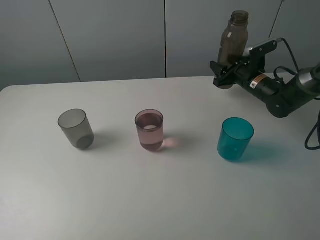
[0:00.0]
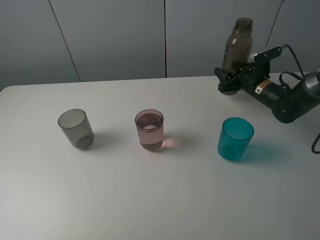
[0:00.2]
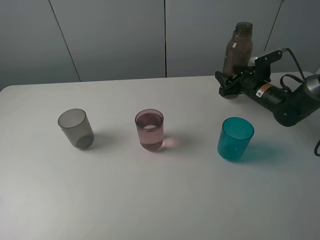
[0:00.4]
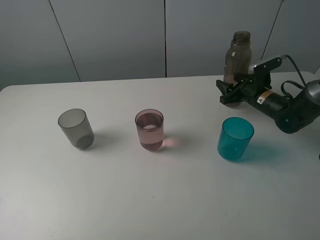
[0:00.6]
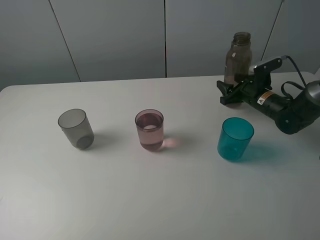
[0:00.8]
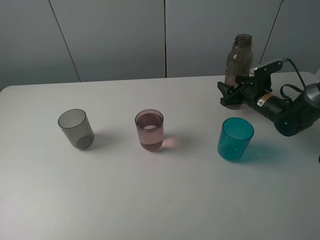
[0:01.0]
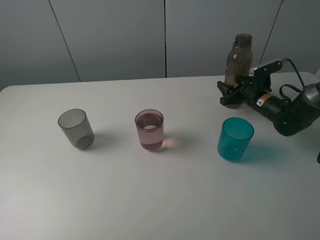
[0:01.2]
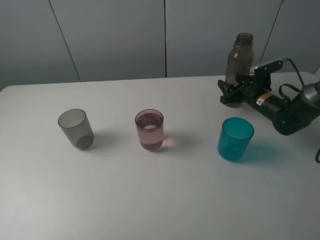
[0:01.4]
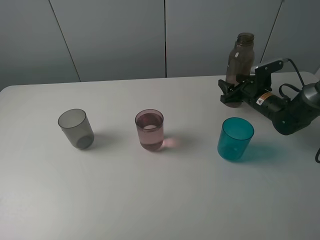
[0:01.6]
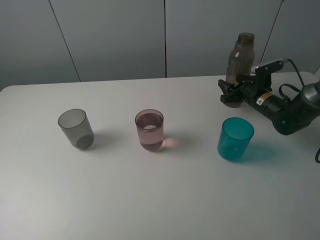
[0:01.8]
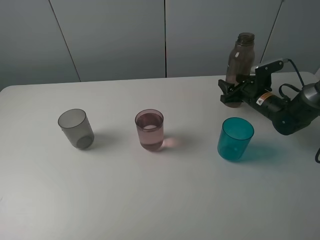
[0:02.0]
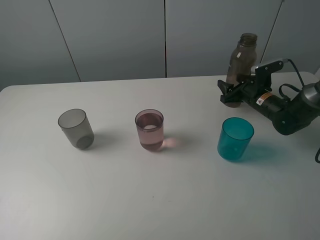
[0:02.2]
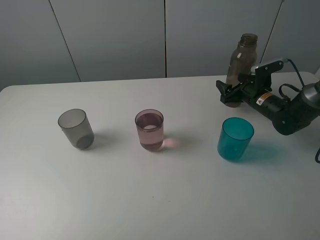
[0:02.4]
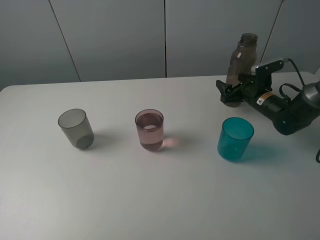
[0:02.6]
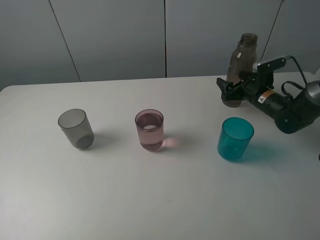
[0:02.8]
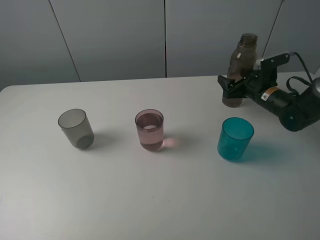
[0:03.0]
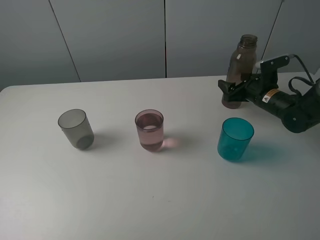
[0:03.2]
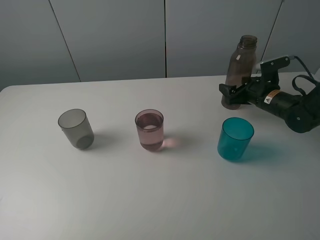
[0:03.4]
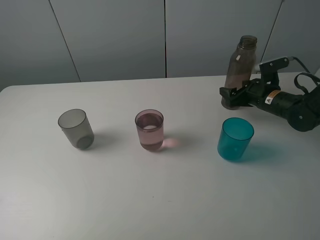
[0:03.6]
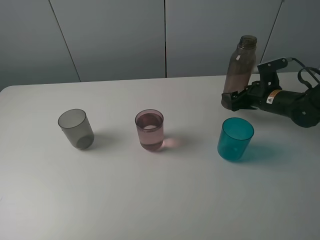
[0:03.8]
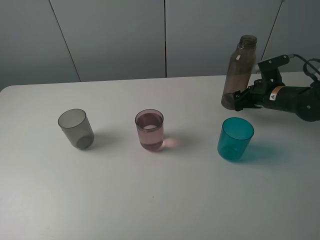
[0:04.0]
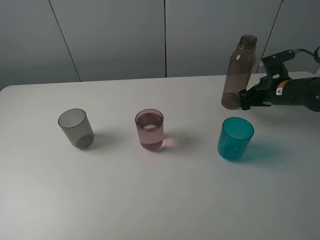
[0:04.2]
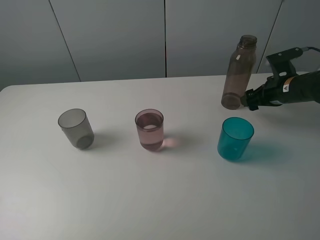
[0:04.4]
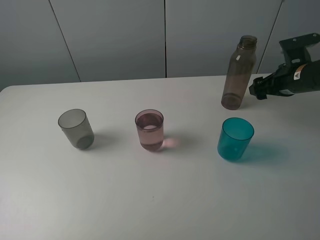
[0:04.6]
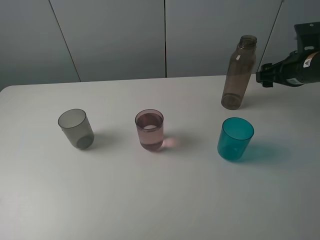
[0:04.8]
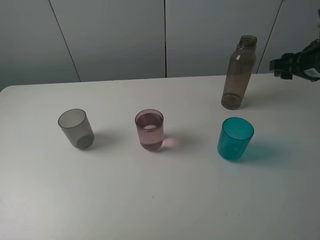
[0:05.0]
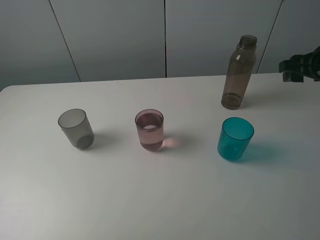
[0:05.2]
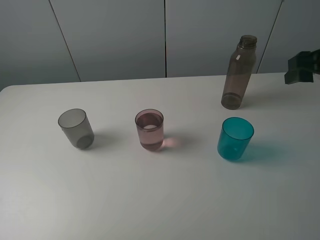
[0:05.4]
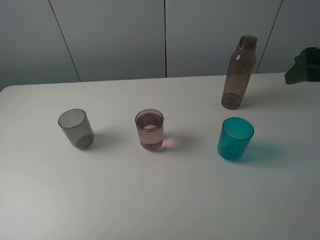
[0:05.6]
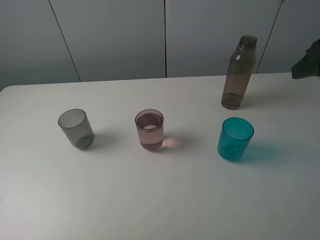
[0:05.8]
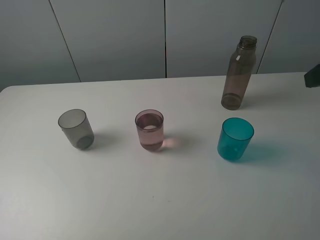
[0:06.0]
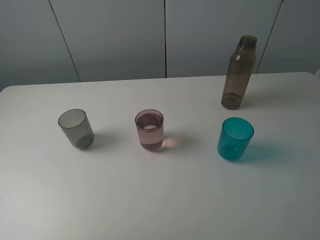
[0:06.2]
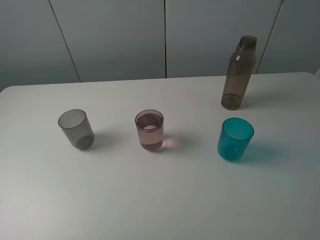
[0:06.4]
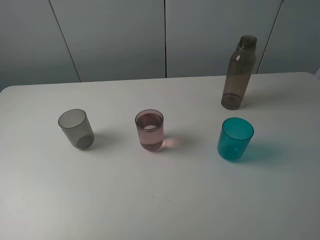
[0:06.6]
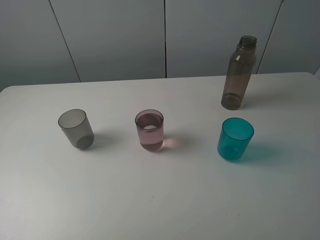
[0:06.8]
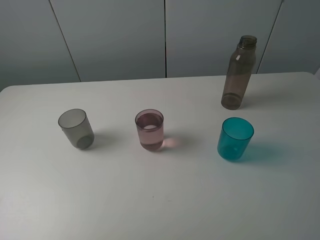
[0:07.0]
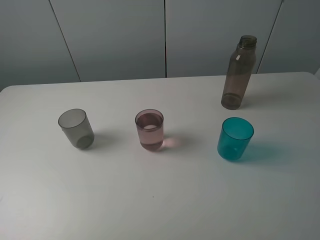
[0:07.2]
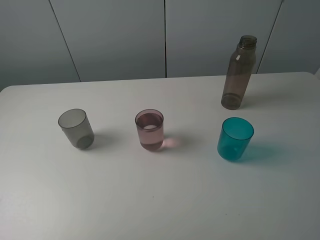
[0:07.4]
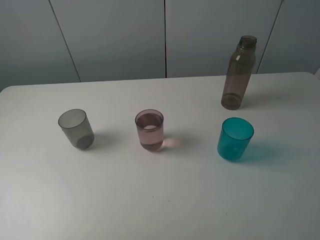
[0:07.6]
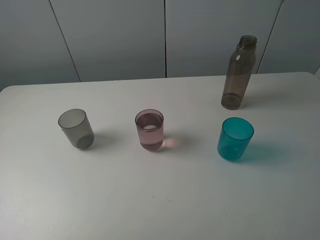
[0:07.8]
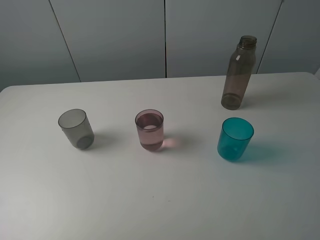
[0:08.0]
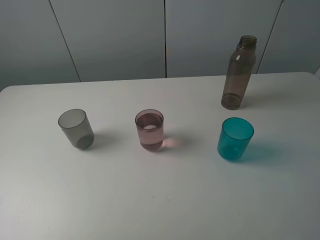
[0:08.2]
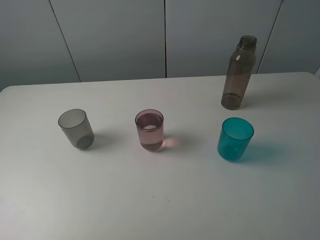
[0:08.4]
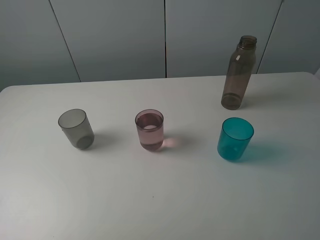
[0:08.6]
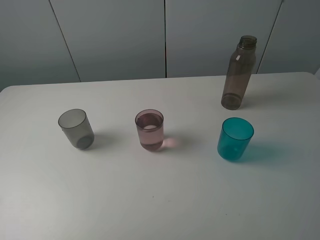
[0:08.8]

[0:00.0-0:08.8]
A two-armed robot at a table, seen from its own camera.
Task of the whole recording: pick up the bottle filled with water and pour water into the middle cup of the three cups.
Step, 0:00.0 to 0:04.8: Place the transparent bottle with the right gripper.
0:00.0 to 0:01.4: The grippers make only small movements.
0:01.4 to 0:03.0: The right gripper opens.
0:03.0 to 0:04.4: The right gripper travels upward by about 5 cm.
0:04.4 to 0:05.8: The right gripper goes roughly 25 cm upward and backward.
0:05.8 to 0:07.4: The right gripper moves backward, roughly 20 cm.
0:07.4 to 0:08.8: The two grippers keep their place.
